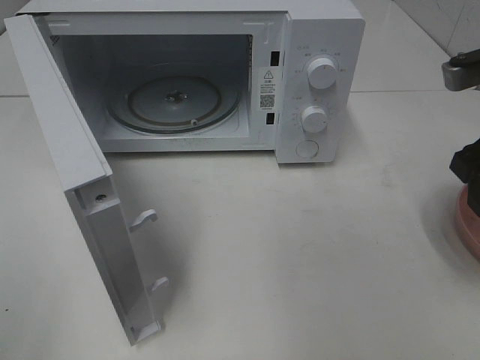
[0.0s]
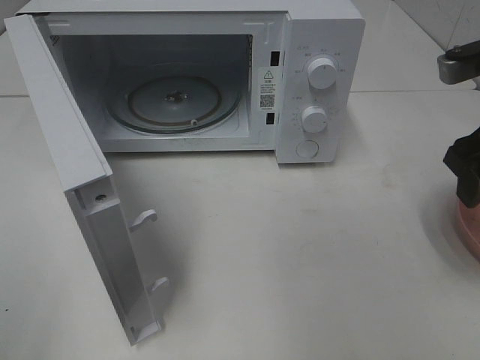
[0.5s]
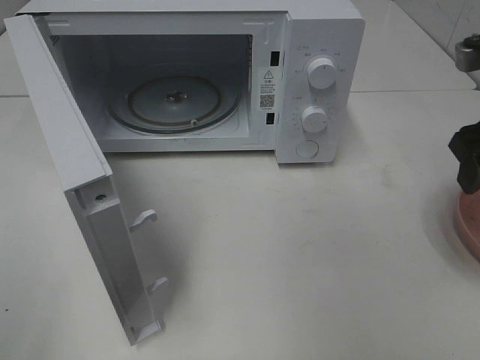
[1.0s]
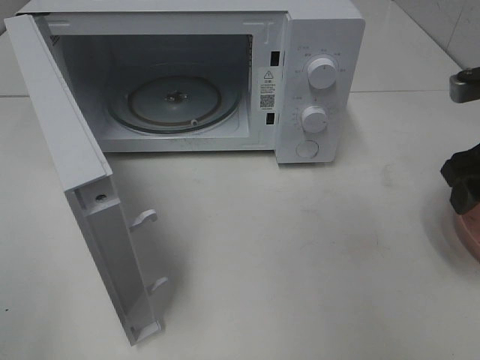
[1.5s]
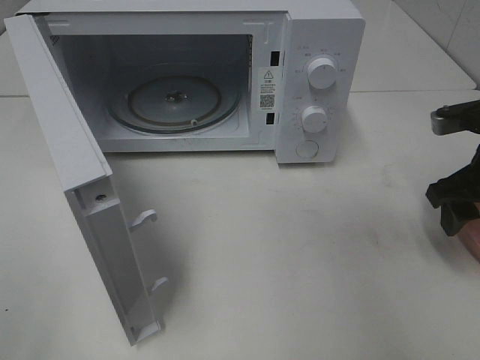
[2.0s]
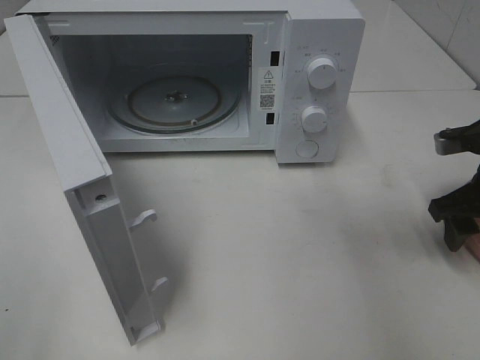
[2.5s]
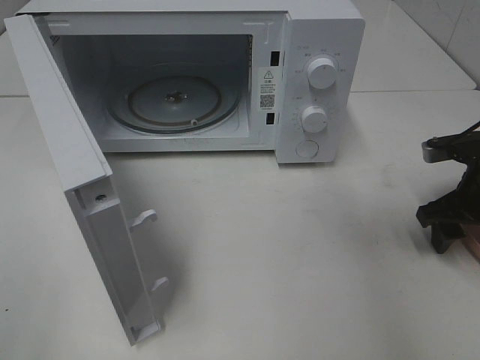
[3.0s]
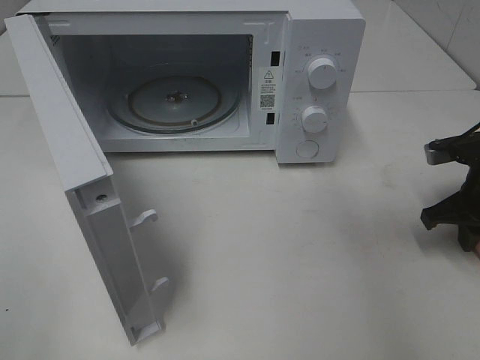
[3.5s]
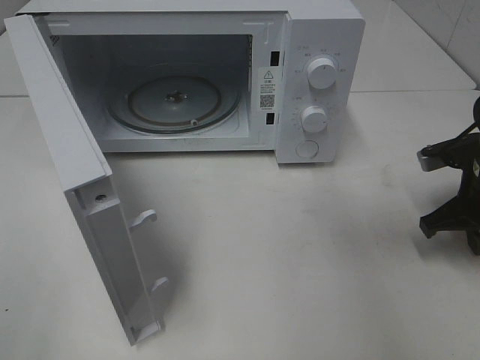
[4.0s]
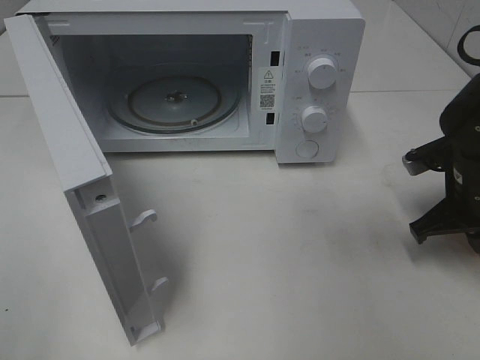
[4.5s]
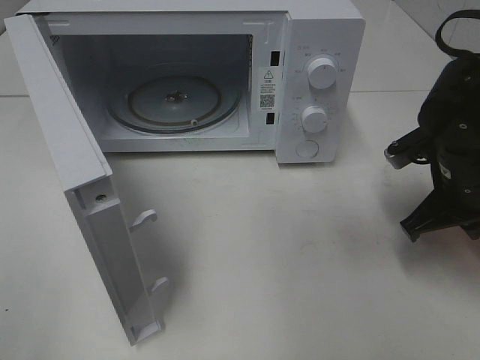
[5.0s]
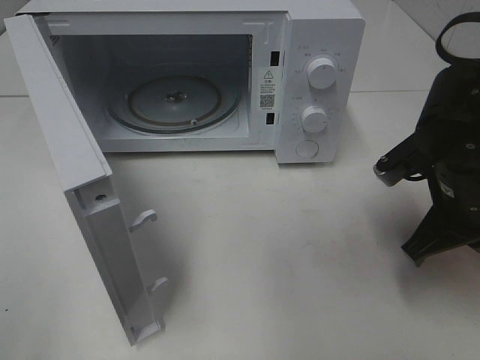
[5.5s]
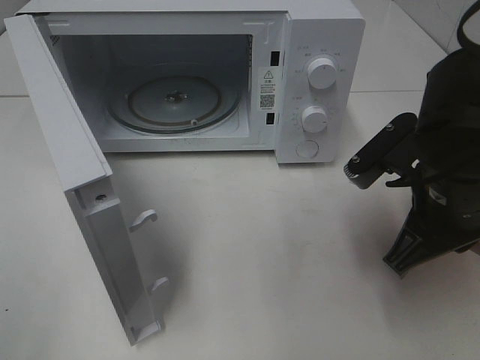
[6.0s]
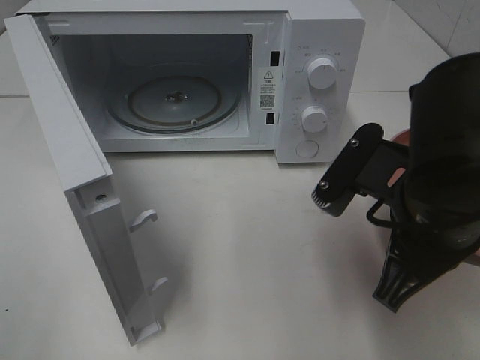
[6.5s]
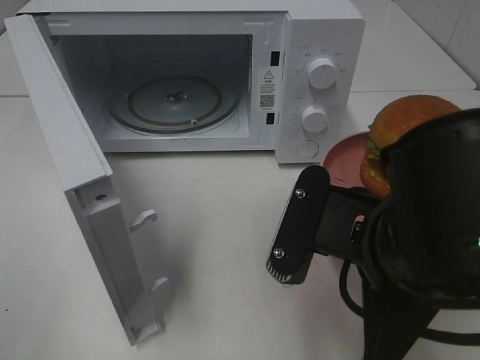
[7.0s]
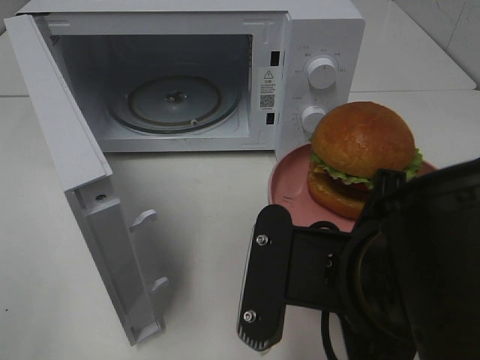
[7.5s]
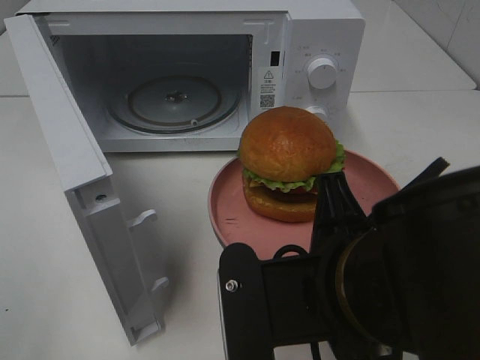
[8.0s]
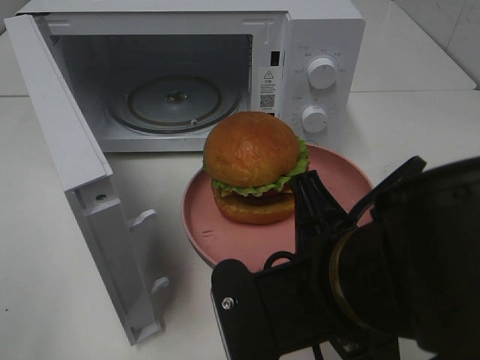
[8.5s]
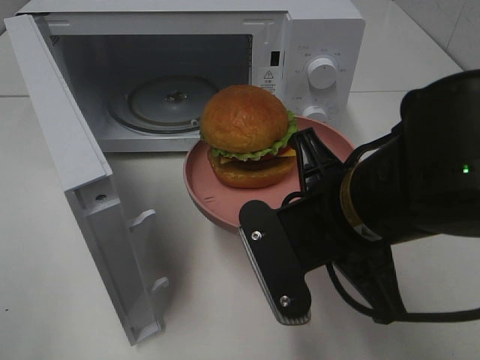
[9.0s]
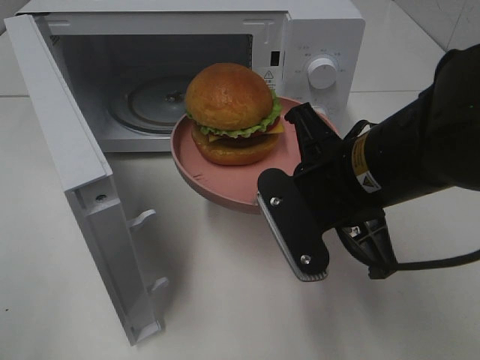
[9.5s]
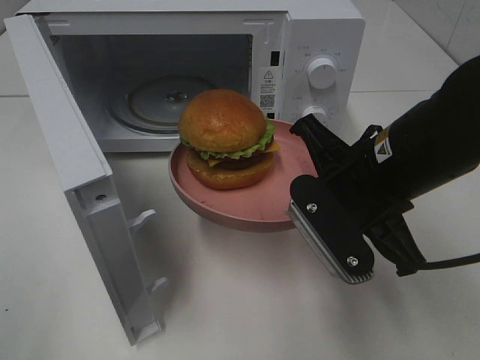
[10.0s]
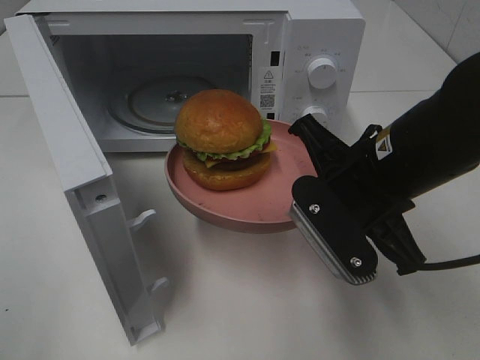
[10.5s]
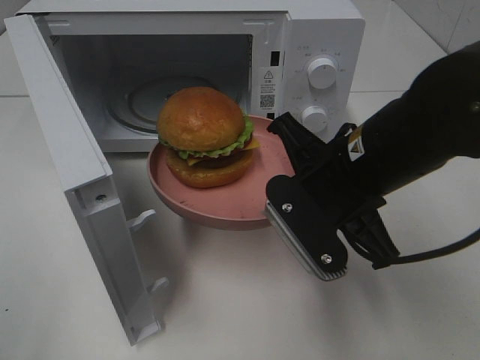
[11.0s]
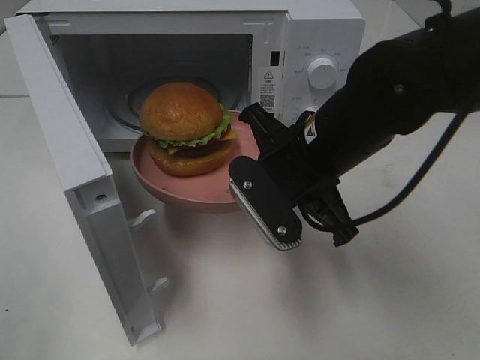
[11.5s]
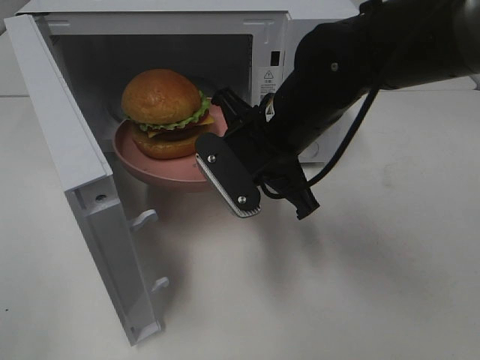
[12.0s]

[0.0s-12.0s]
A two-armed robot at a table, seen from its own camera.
Task of the whole recording: Heat the burger.
Step, 0.0s to 4.0s: Right hand: grab the plate with the hamburger.
0.0s to 2.0s: The right gripper goes some 10 cm downward.
2.0s to 4.0s: The right gripper shifts roughly 5 cm downward, and closes up.
4.0s to 6.0s: The right gripper goes roughly 15 cm to the left, backward and upward.
6.0s to 8.0s: The right gripper heads backward and to the left, covering approximately 15 cm.
8.0s to 10.0s: The right gripper heads forward and to the right, covering approximately 15 cm.
10.0s to 12.0s: The right gripper goes some 10 cm to the left and forward.

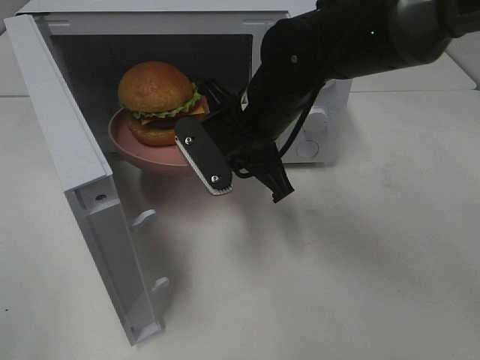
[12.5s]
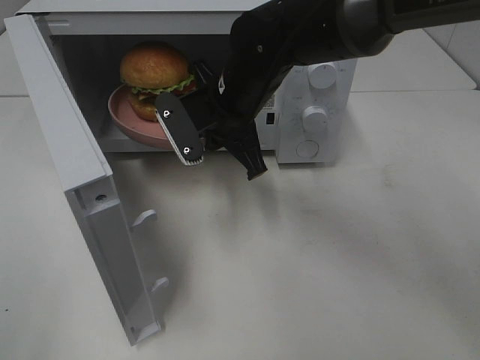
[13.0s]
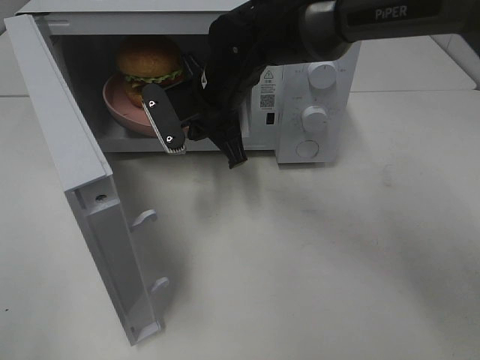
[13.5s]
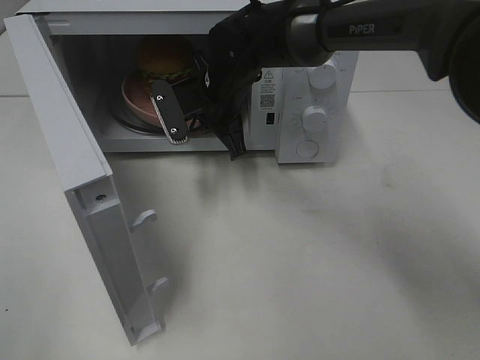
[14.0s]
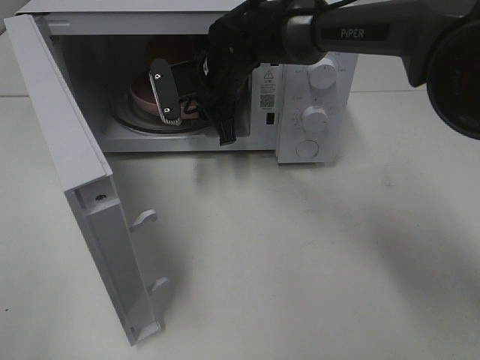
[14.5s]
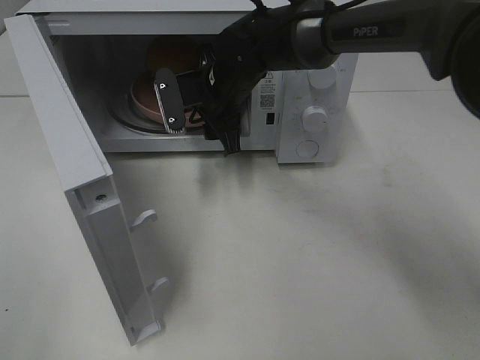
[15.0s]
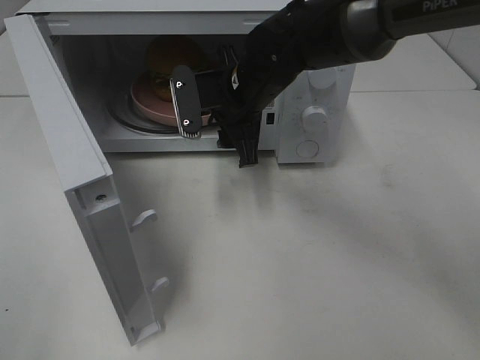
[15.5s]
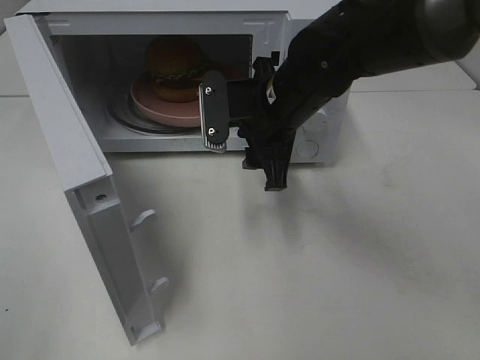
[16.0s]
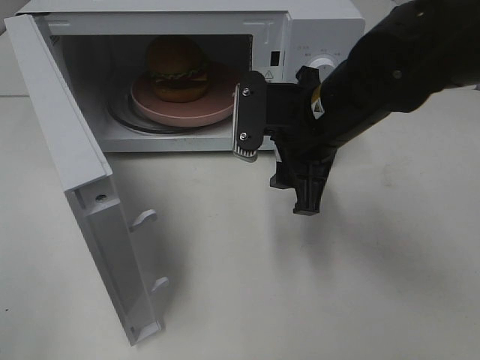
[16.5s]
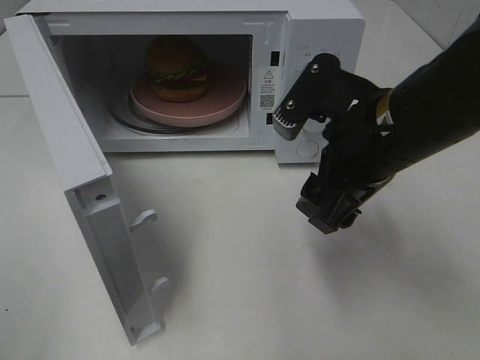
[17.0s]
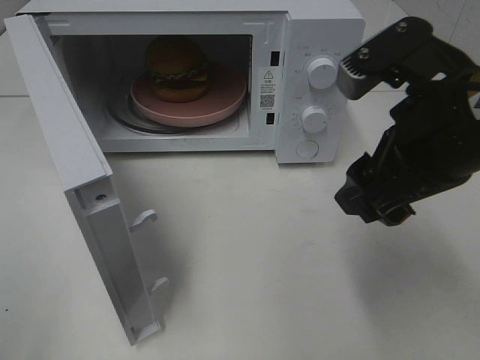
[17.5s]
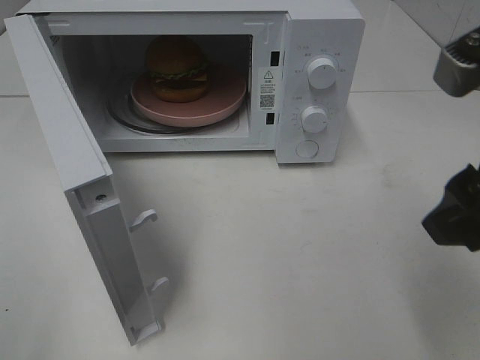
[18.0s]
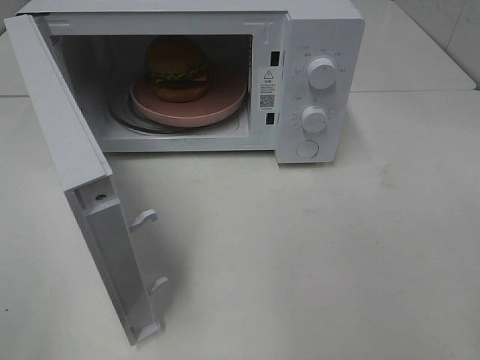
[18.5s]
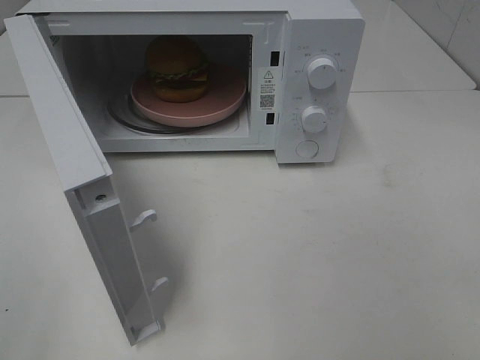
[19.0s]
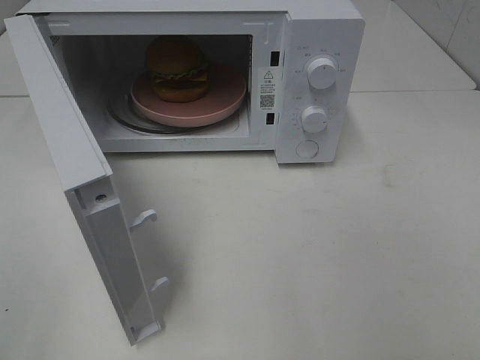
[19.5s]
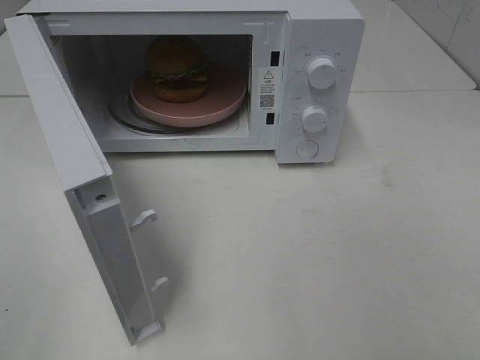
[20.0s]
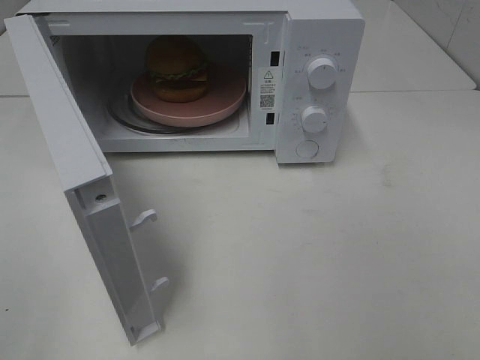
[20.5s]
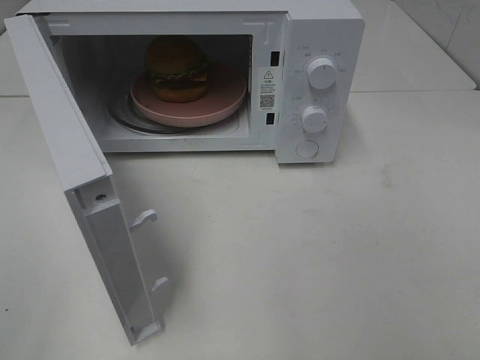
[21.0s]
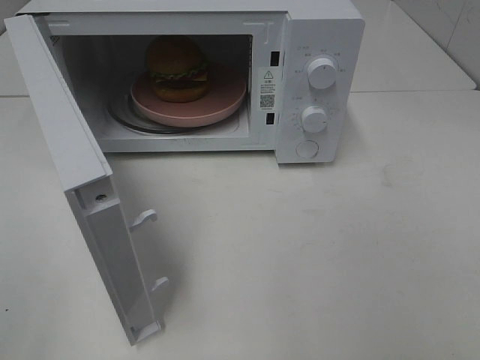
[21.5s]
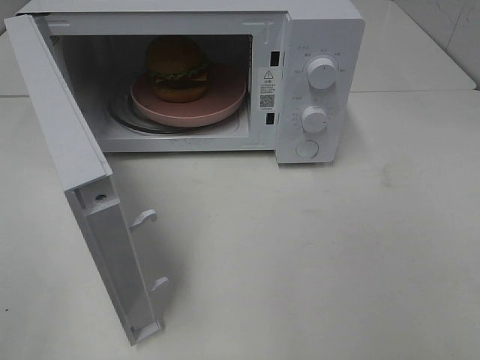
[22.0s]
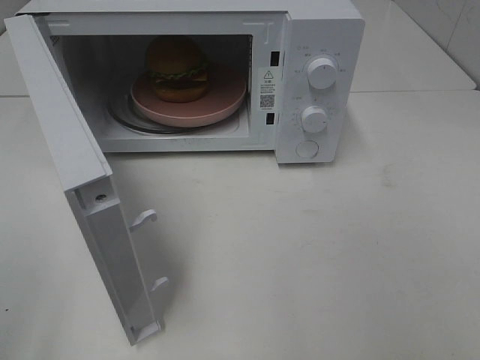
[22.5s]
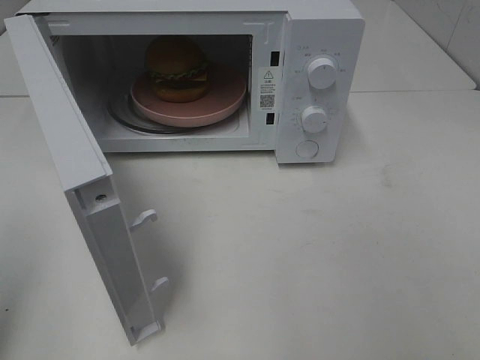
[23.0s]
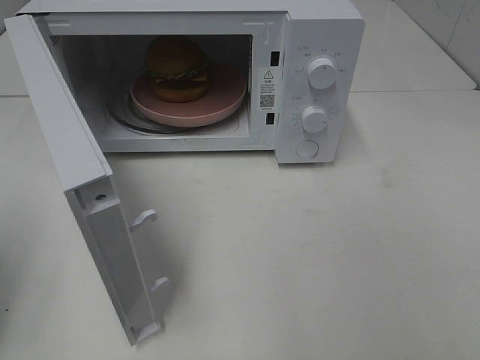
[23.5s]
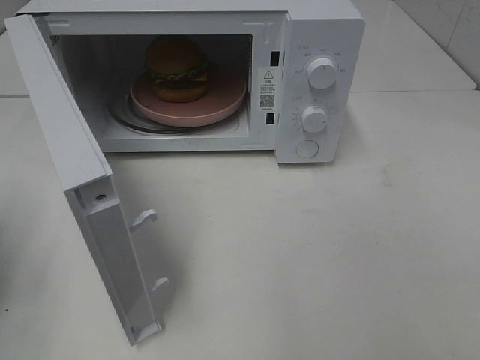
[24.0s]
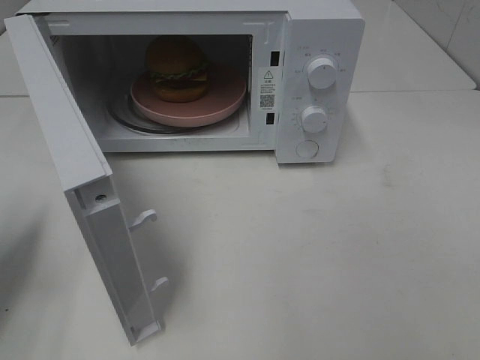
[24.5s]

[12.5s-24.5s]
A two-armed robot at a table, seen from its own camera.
Task of the whole recording: Heat the burger.
Step, 12.5s to 15.0s: Right hand: place the plate in the microwave.
12.5s to 14.5s: The right gripper moves forward, about 10 cm, and opens its fingers.
14.5s to 16.5s: The right gripper goes about 20 cm backward and to the right.
16.5s to 18.5s: The right gripper shifts roughly 30 cm backward, to the right and upward.
22.5s to 24.5s: The left gripper goes approximately 20 cm forward and downward, and closes up.

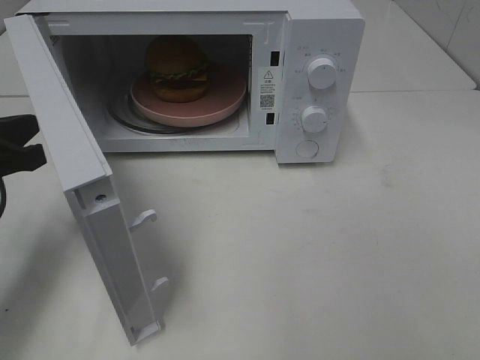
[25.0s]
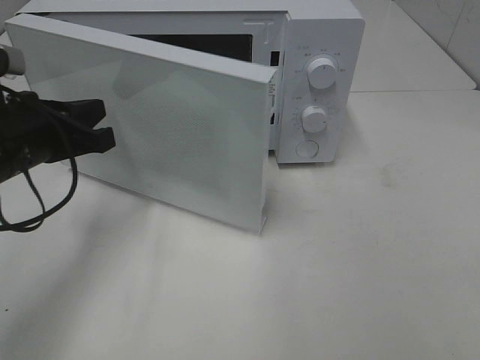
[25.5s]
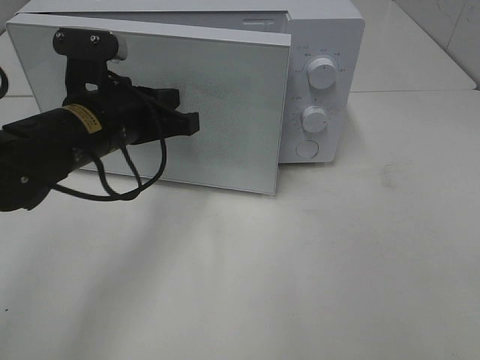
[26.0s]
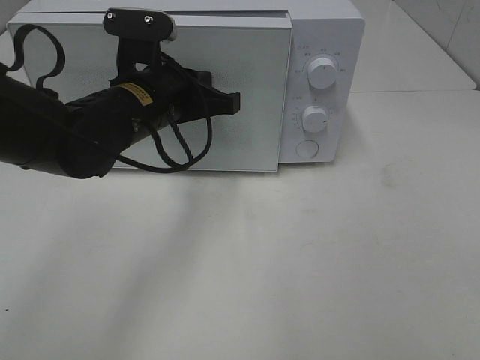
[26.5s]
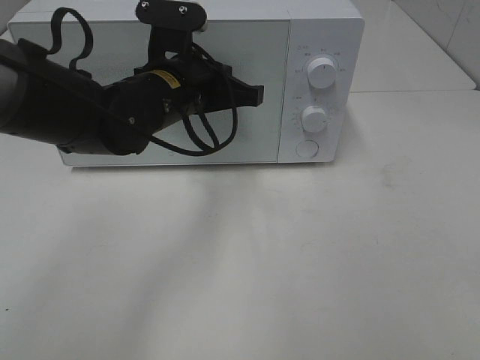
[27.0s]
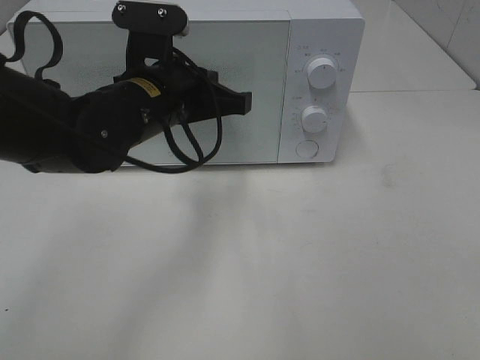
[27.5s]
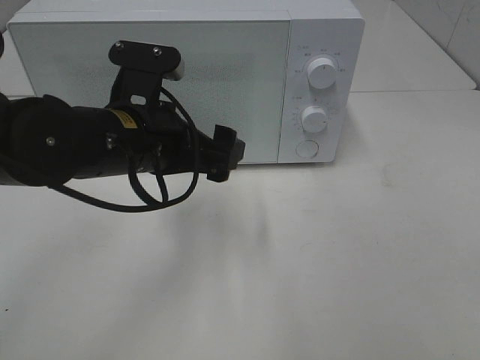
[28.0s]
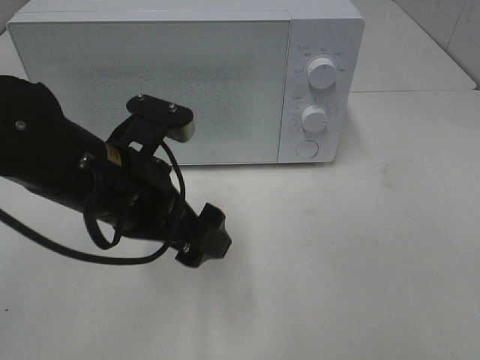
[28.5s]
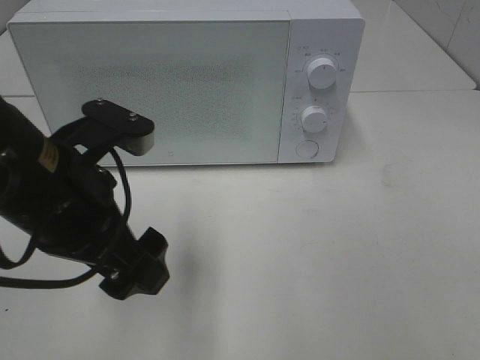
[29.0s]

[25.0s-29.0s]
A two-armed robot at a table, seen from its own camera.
Task of the whole recording: Heat the burger.
Step, 25.0s to 27.5s: Left hand: close the microwave door.
25.0s to 27.0s: The left gripper shifts some 25 cm to the right and forward.
27.0s to 29.0s: The left gripper goes approximately 15 cm backward and to the left, and opens up.
